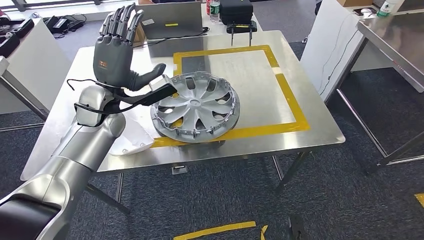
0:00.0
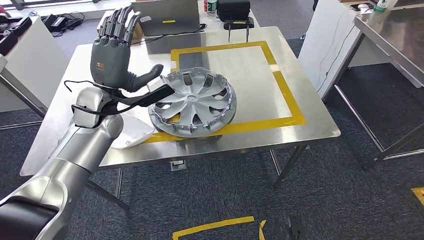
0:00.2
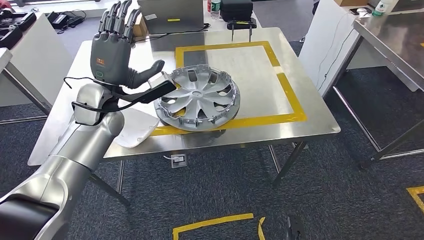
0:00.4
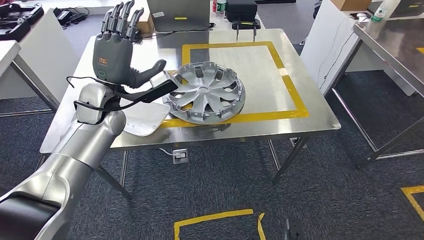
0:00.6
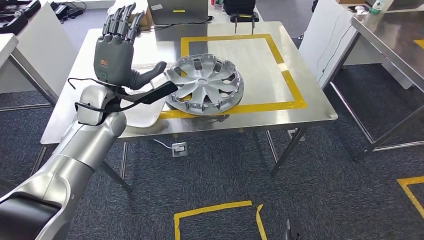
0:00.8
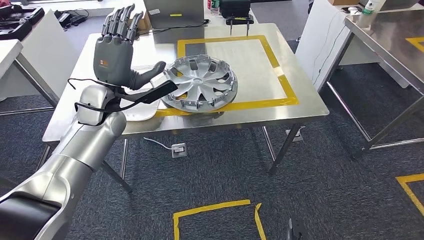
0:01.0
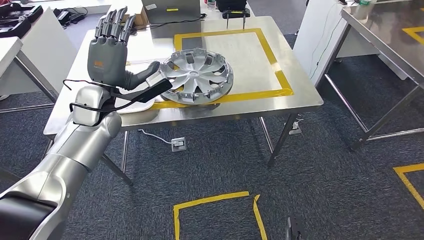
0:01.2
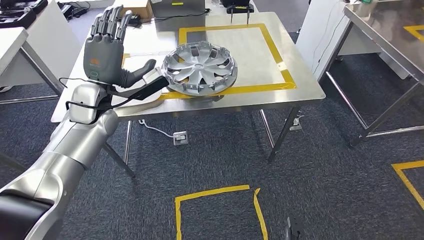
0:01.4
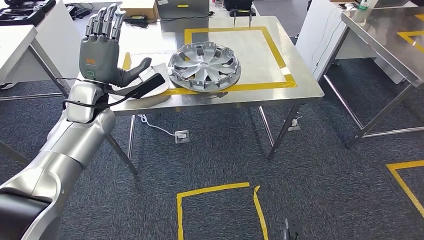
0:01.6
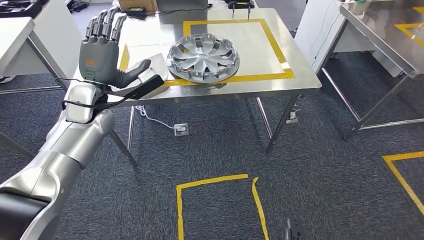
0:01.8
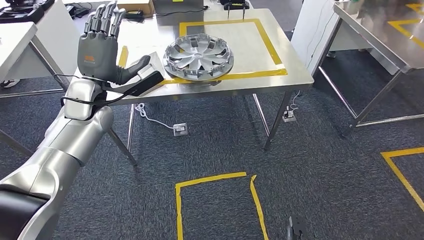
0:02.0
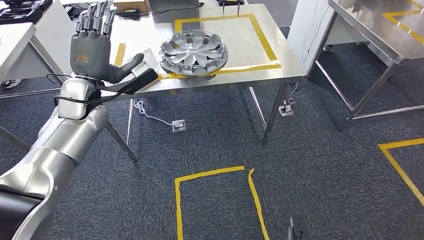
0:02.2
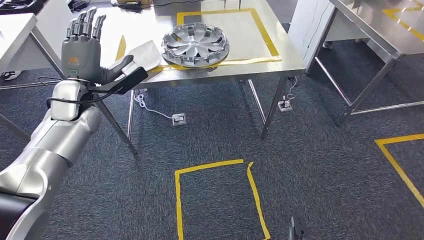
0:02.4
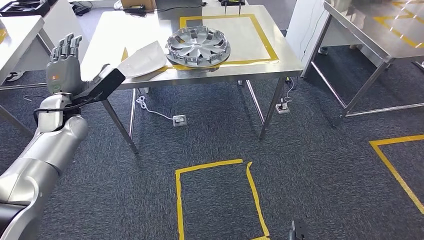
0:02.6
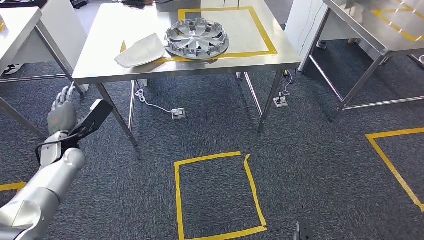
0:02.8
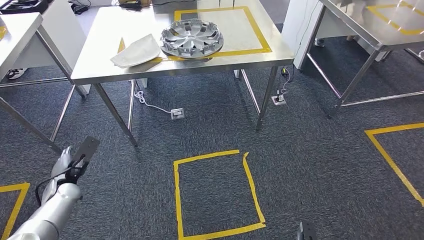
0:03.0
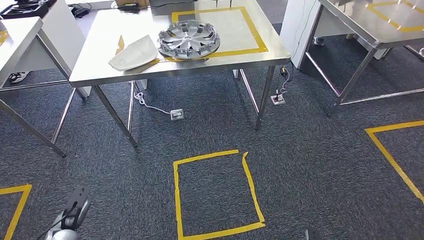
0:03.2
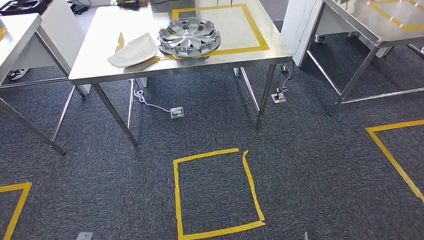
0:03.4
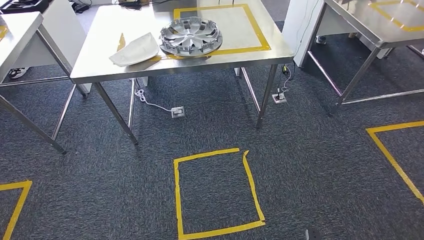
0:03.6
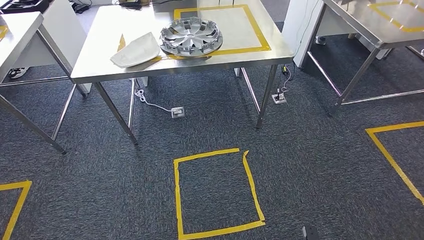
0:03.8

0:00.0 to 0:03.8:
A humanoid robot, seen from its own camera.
Step, 0:02.6 to 0:03.8: Return to the initial position at the shelf.

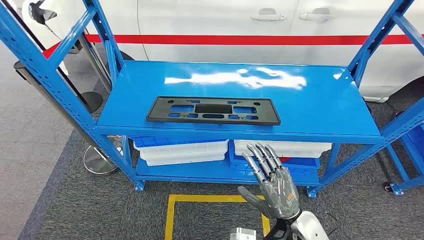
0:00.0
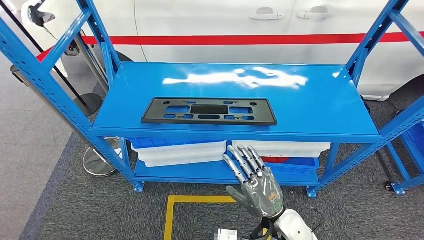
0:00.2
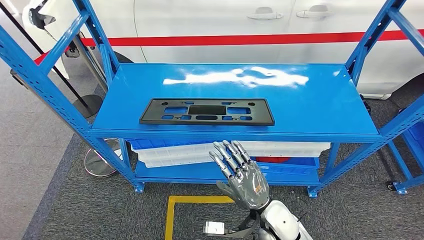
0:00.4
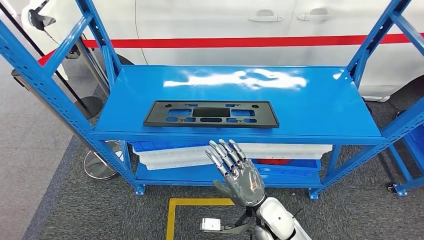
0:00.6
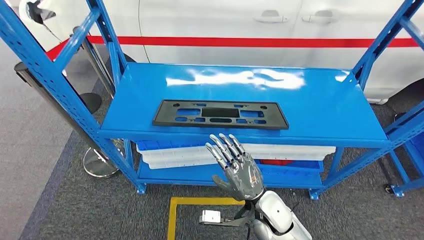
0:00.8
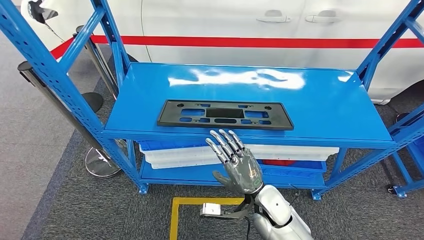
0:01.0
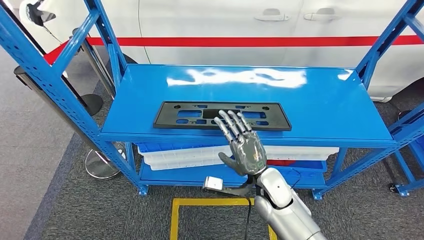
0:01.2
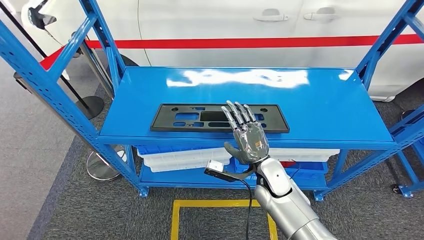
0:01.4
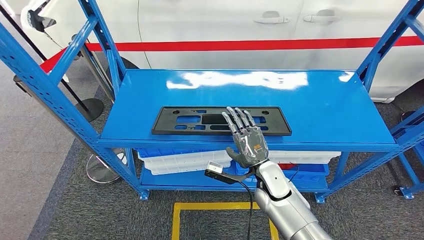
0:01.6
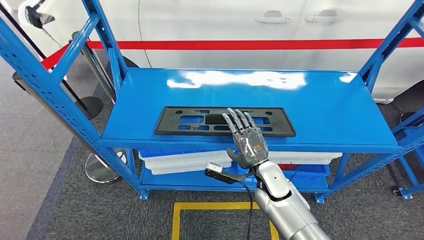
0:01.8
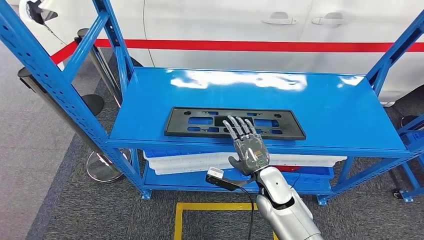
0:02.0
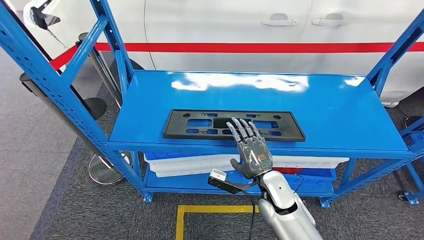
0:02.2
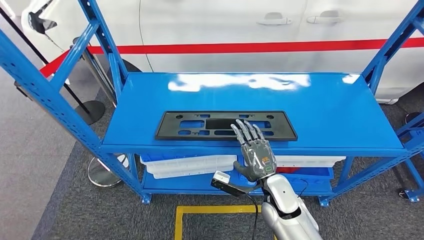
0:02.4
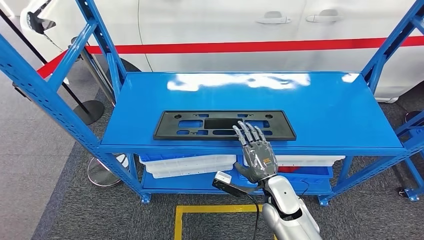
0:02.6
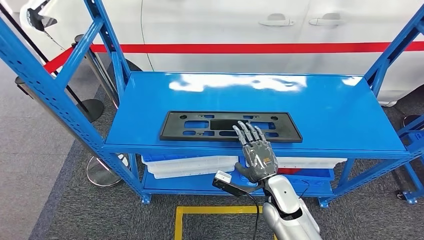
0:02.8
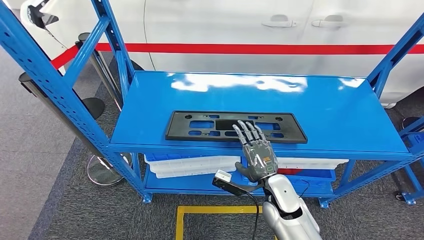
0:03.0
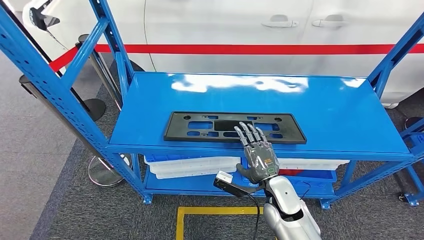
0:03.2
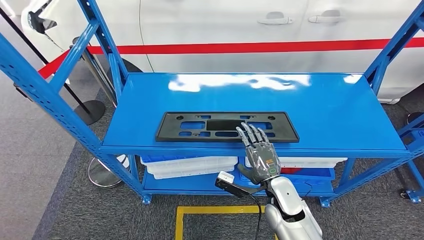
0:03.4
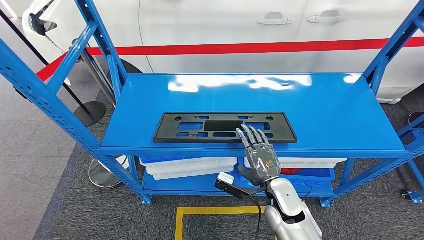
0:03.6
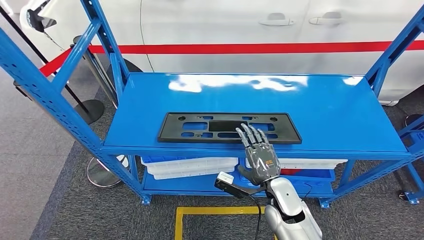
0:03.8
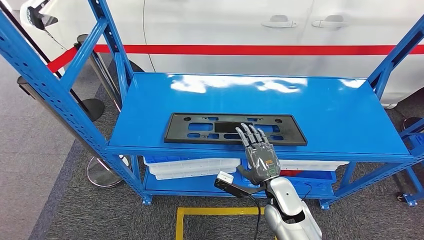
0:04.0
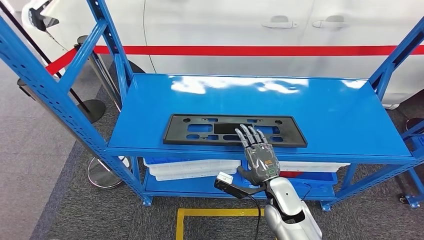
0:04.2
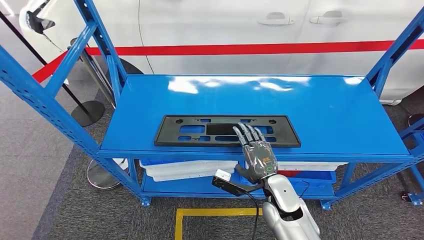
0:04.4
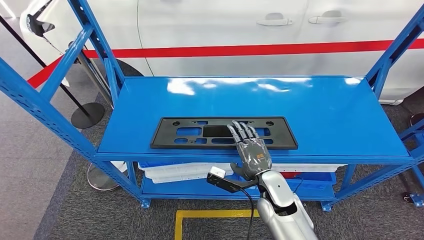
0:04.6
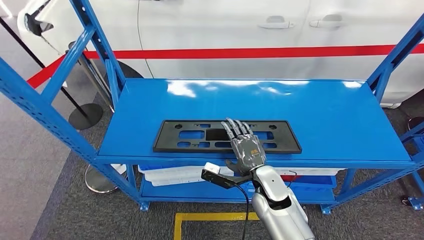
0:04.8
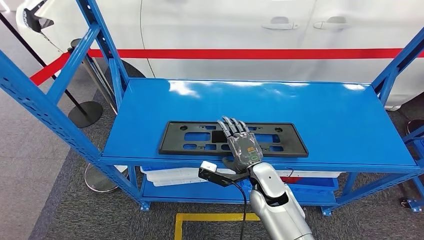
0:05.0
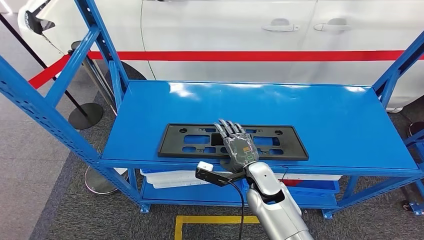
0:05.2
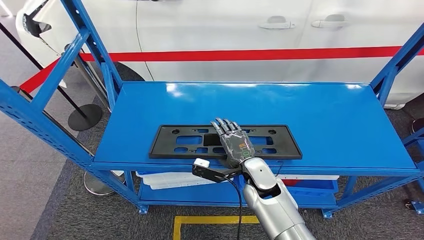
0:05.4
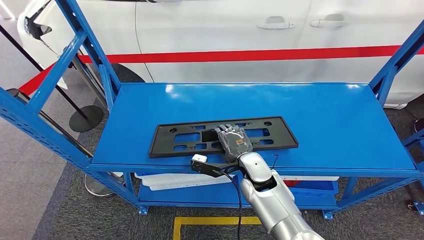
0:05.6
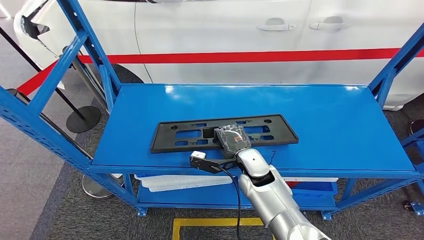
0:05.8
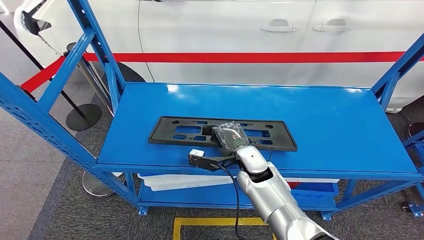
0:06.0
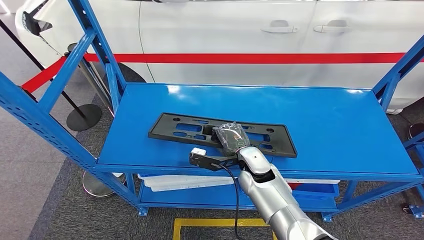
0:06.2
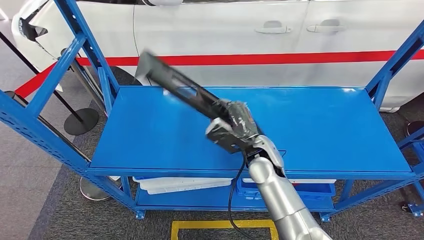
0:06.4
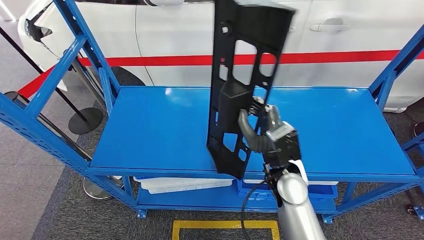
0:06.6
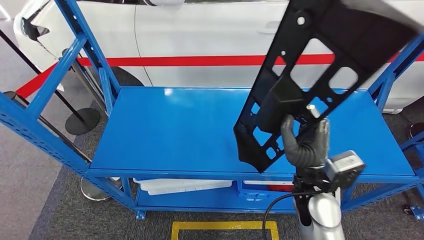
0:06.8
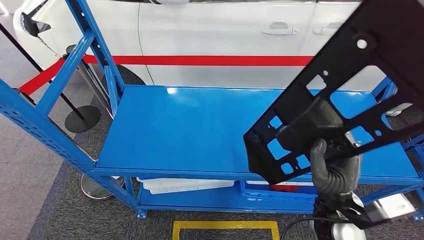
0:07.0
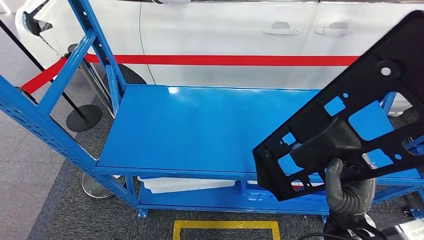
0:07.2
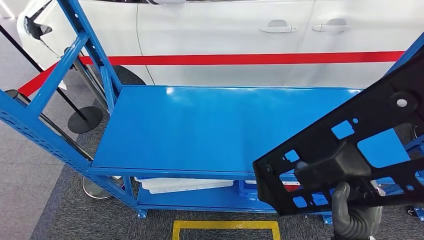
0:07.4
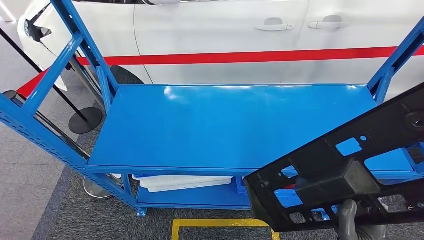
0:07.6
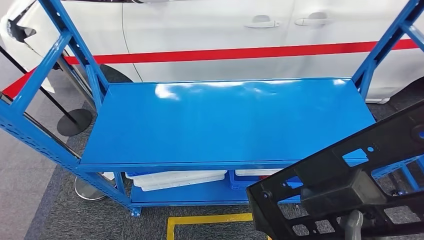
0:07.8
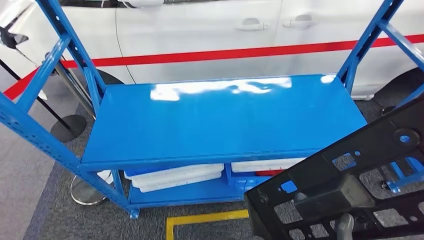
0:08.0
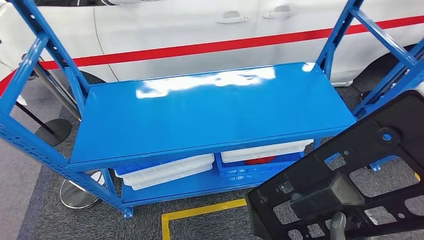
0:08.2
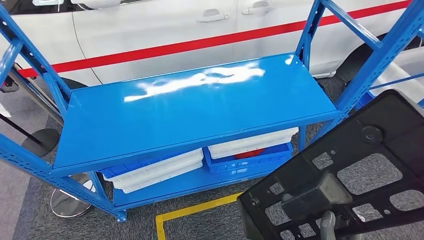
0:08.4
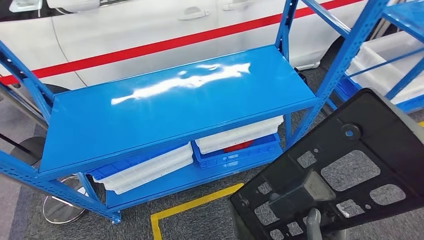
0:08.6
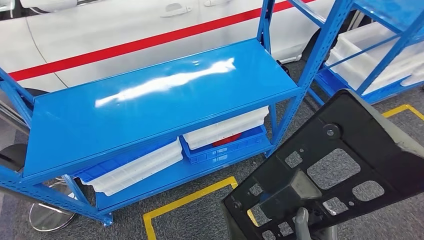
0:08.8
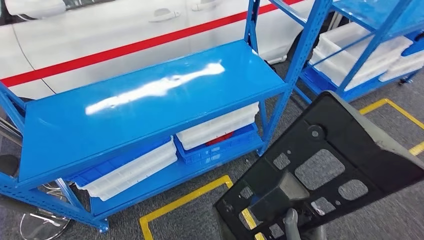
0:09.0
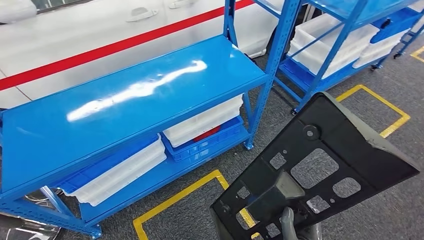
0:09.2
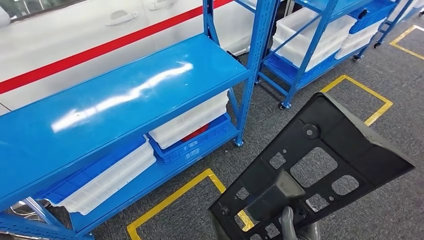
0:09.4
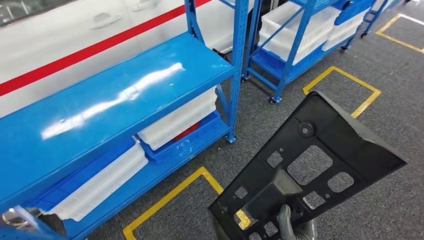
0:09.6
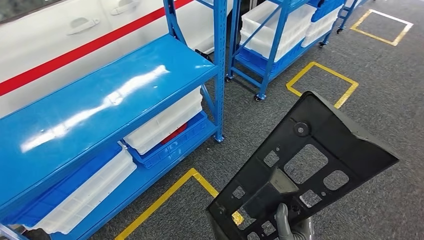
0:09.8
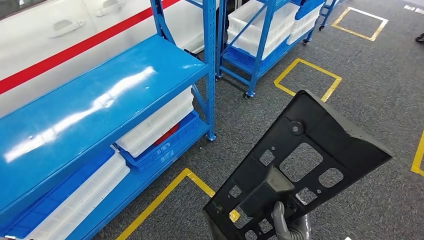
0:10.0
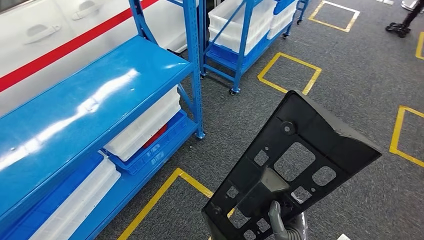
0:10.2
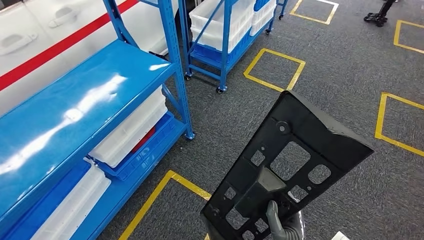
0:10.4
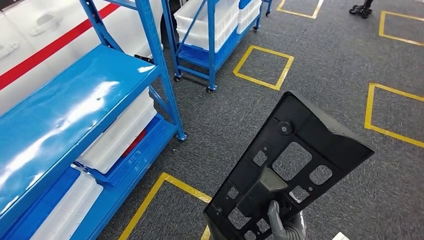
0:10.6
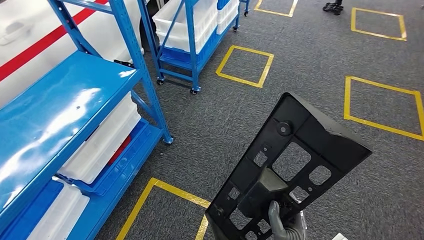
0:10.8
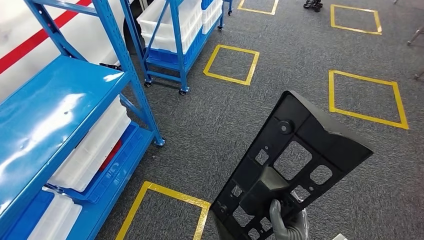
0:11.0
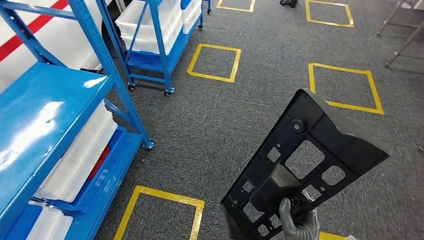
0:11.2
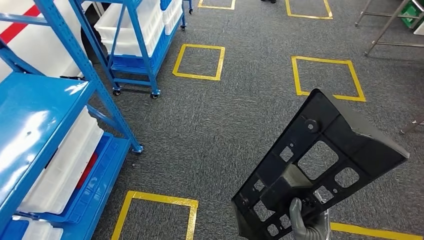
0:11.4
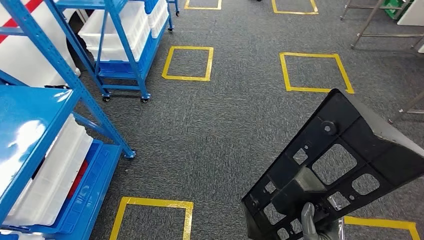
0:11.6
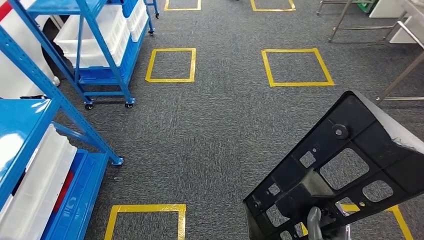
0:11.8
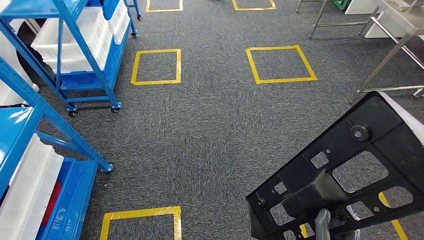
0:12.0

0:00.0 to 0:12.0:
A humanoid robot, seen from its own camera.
Step, 0:00.0 to 0:08.4: Pick up the large material from the shelf.

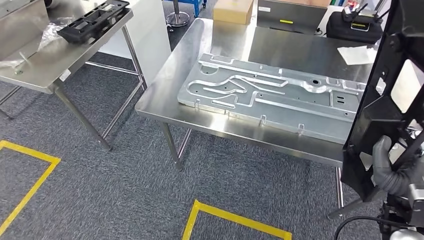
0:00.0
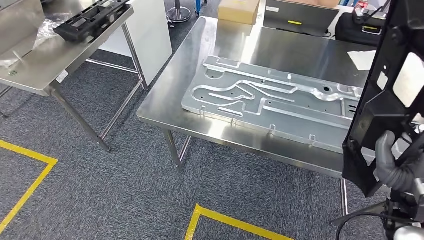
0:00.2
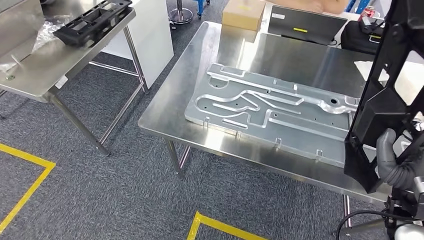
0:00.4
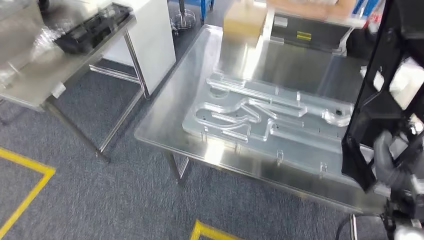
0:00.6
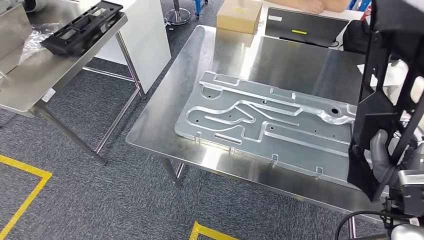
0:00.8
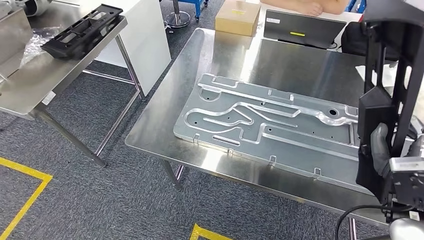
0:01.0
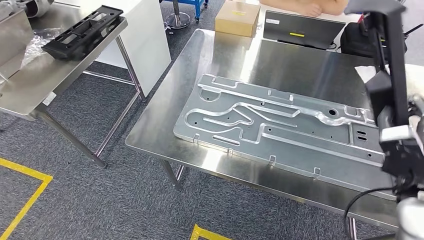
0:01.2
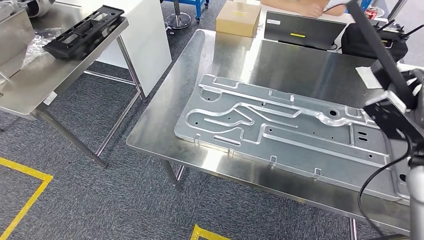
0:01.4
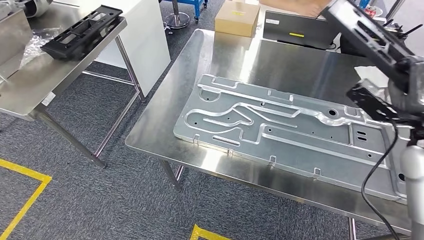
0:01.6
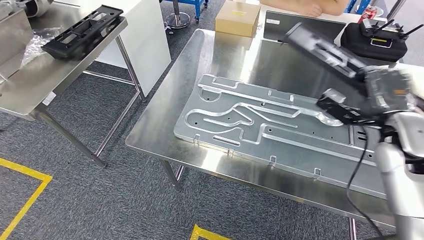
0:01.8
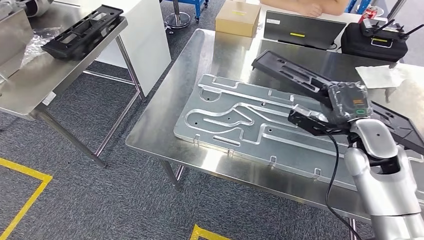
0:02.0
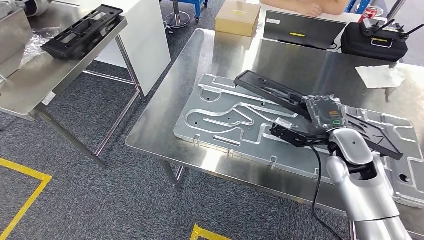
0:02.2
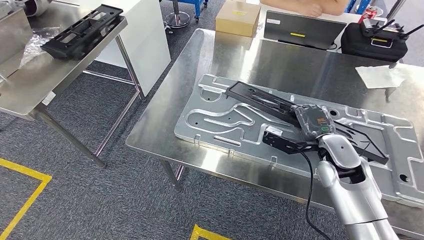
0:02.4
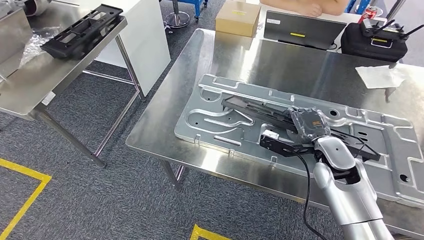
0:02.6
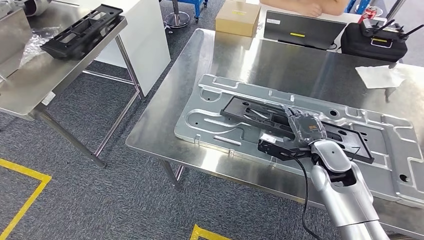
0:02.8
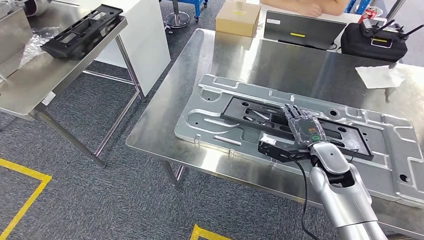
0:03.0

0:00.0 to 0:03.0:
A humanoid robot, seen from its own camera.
0:01.6 to 0:03.0: The right hand is displaced downward and to the left by roughly 20 cm.
